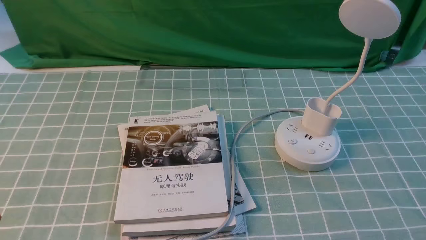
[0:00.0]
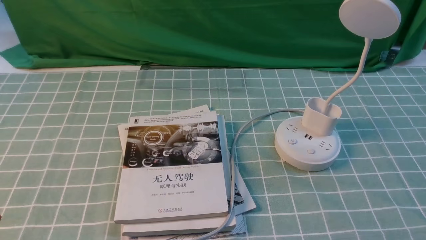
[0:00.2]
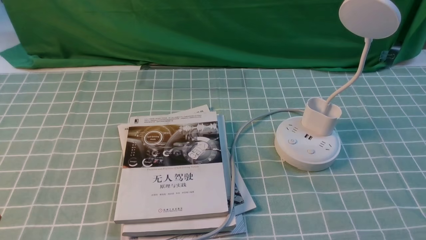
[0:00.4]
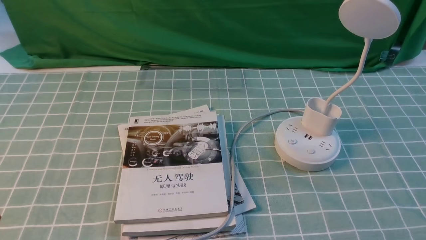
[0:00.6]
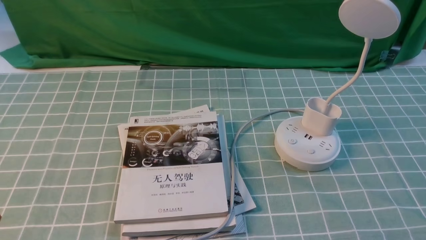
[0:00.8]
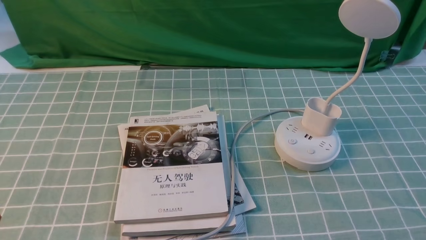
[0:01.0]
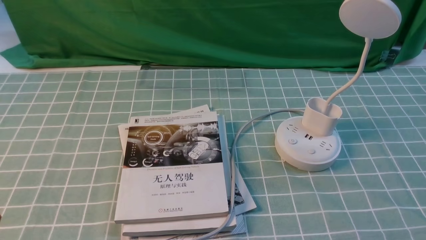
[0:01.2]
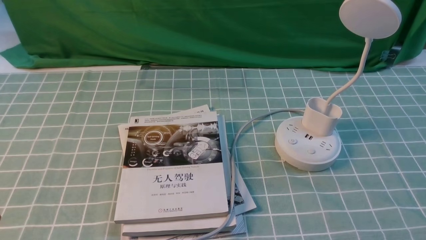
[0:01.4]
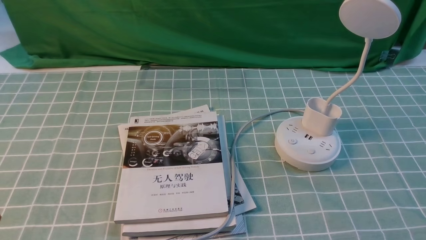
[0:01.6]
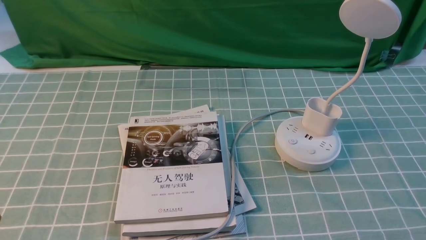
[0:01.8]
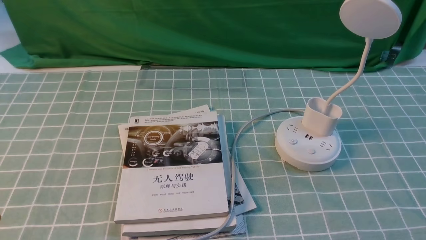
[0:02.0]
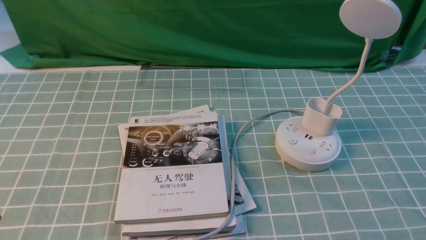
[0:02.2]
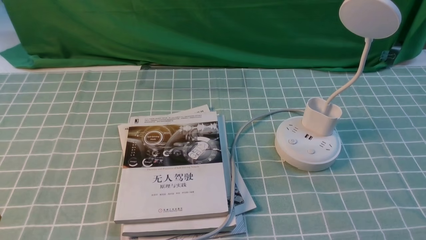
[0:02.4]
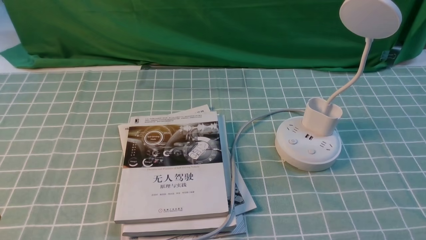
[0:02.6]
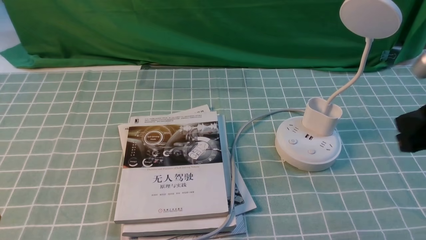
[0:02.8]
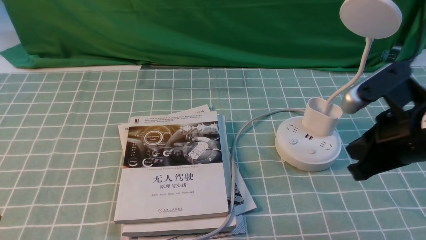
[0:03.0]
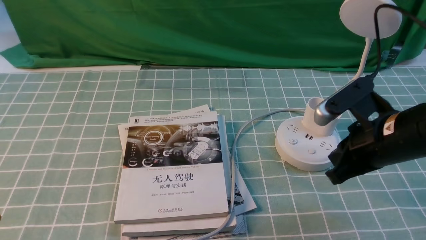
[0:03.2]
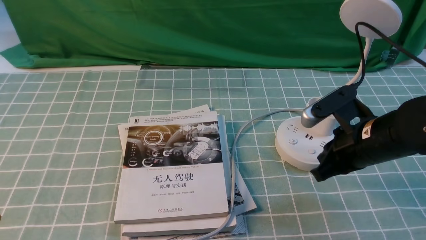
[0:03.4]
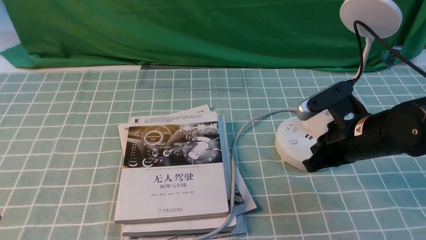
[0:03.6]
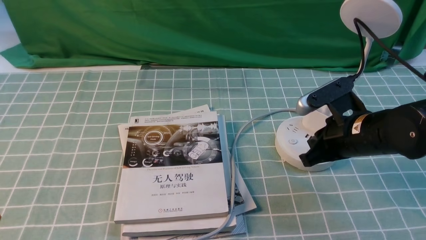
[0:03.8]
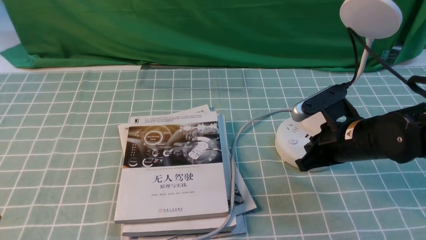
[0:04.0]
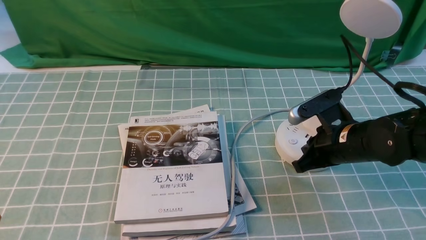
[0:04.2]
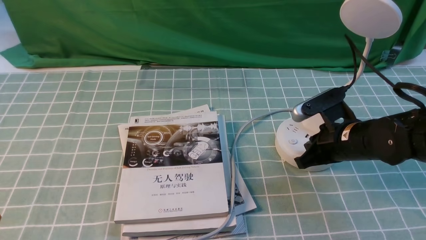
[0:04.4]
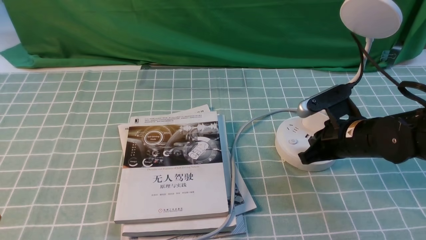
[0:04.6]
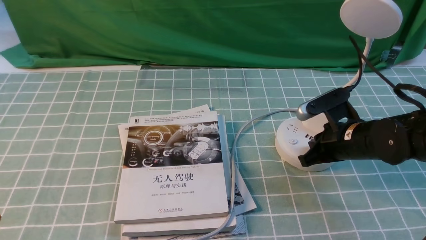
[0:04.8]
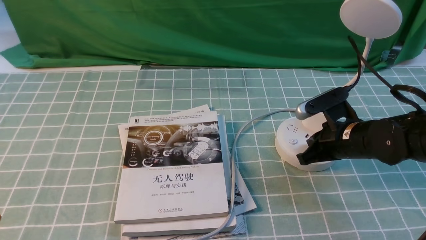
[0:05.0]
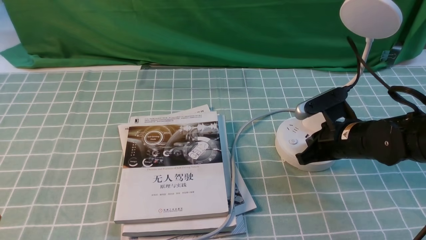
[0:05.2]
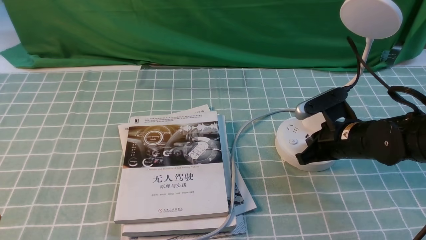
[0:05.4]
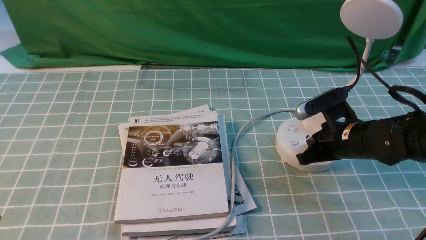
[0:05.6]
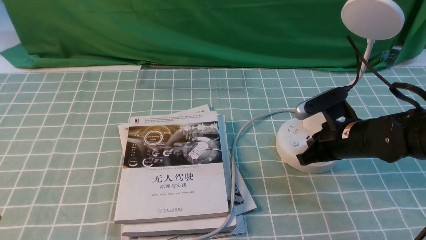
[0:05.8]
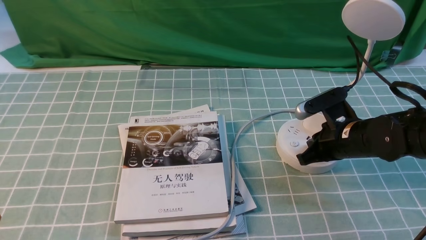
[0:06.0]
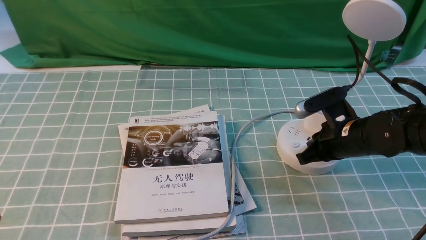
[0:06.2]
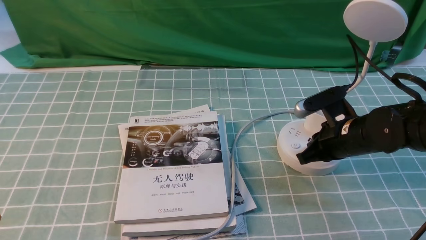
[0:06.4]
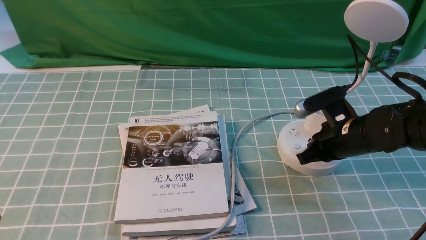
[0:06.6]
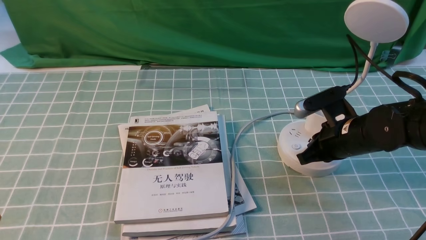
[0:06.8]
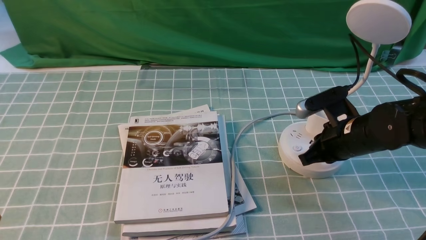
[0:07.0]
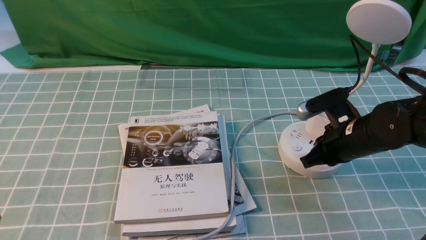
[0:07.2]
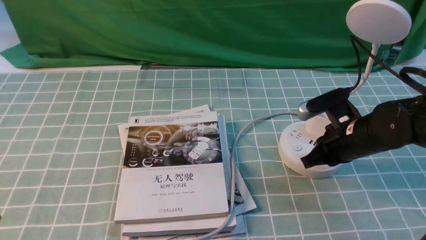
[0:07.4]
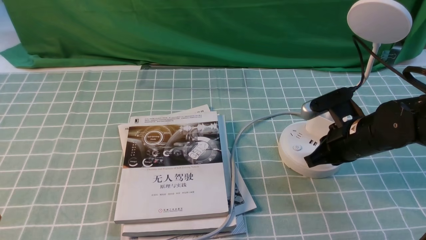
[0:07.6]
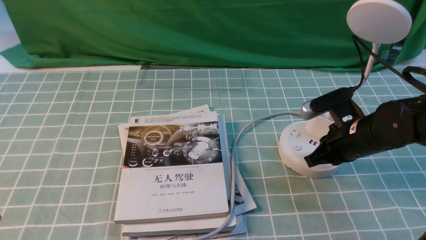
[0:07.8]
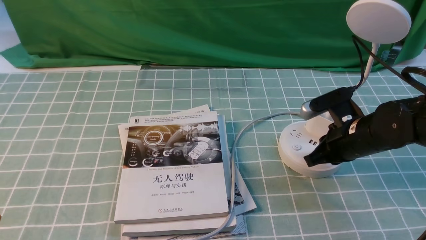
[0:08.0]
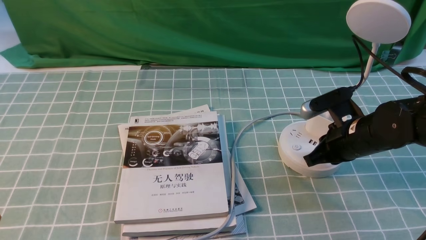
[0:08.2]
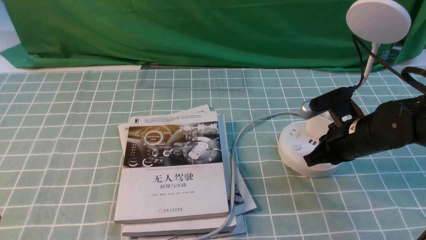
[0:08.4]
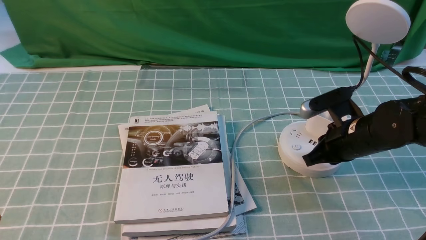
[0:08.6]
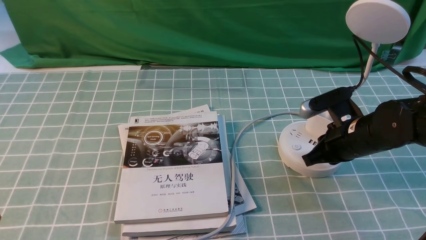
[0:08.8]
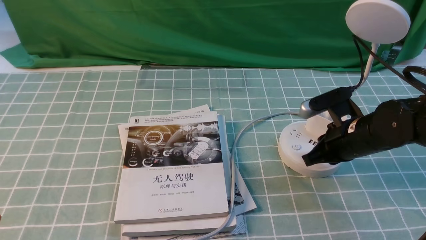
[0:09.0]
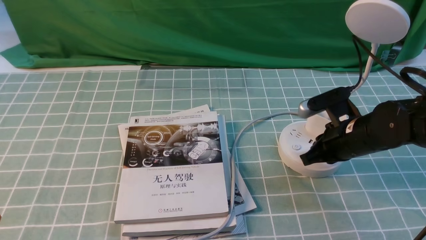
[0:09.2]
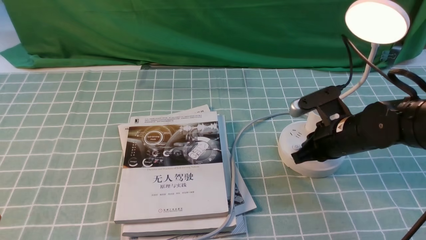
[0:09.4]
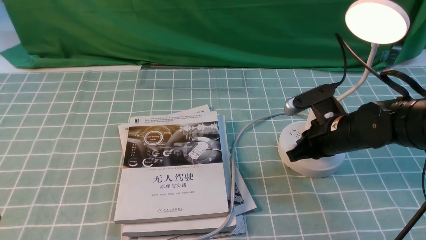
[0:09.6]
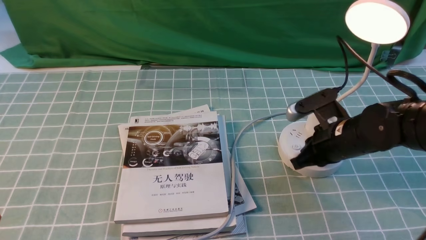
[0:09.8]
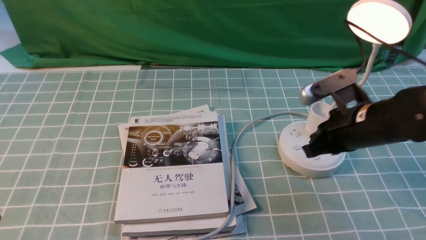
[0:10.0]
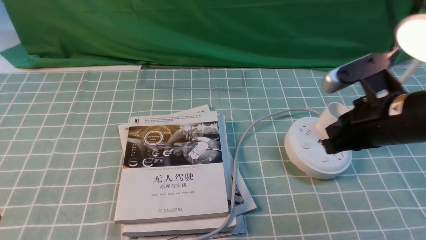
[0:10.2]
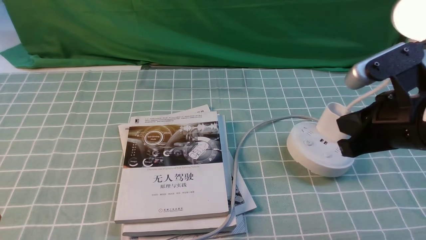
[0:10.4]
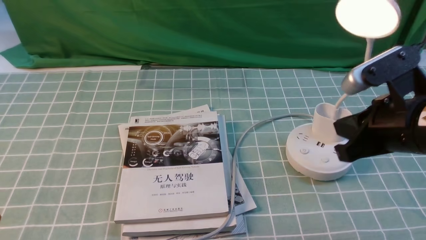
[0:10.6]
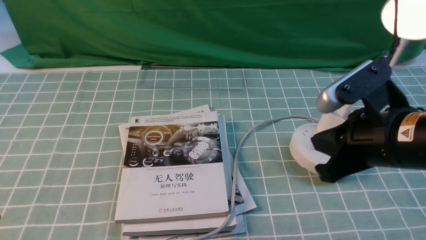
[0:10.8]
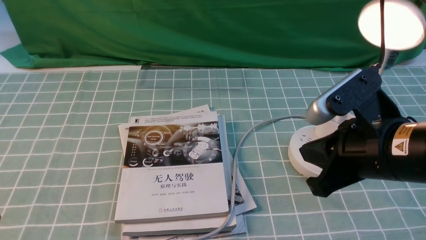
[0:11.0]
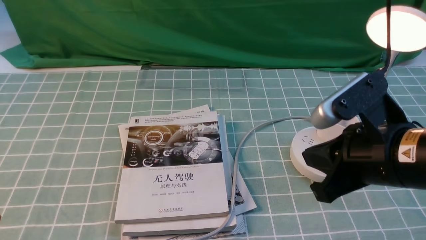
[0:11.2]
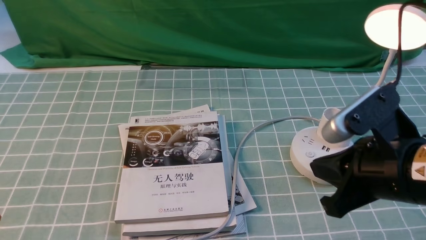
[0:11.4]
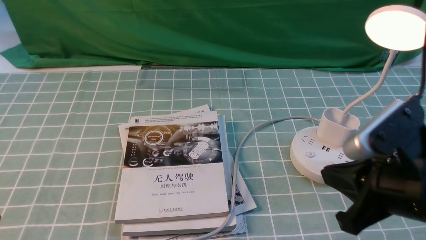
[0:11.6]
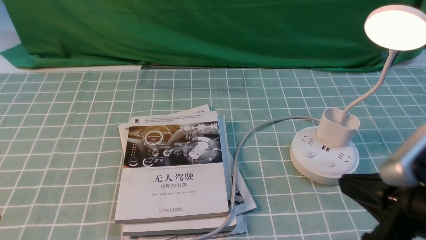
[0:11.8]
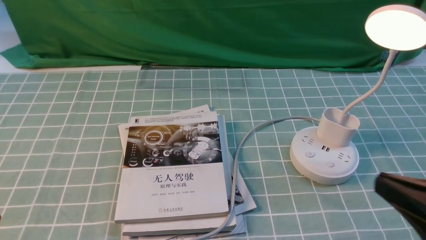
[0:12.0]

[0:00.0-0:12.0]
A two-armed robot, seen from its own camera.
Step, 0:00.0 to 0:09.6: use the right arm to press the button switch on the lamp holder.
0:01.6 to 0:03.0: The right gripper moves forward, to the left and upward, about 20 cm, and closes up.
0:03.0 to 0:04.4: The right gripper goes approximately 15 cm downward and forward.
0:04.4 to 0:07.6: The grippers make only small movements.
0:07.6 to 0:09.0: Neither gripper changes place.
0:09.0 to 0:10.4: The right gripper shifts roughly 15 cm upward and backward.
0:10.4 to 0:12.0: The right gripper is displaced backward by roughly 15 cm.

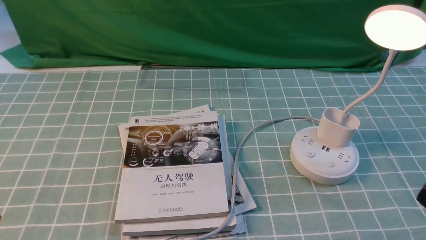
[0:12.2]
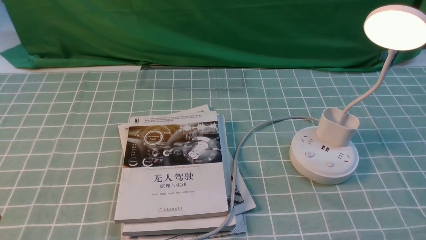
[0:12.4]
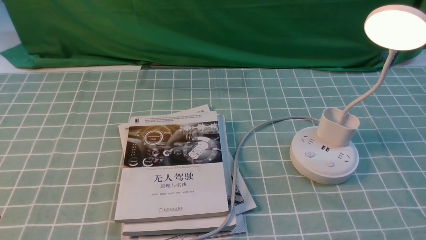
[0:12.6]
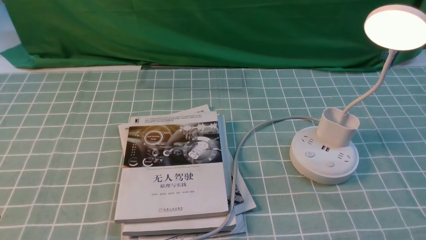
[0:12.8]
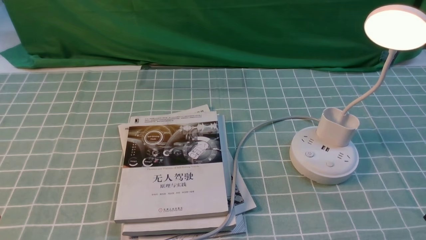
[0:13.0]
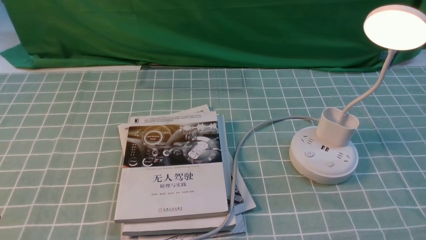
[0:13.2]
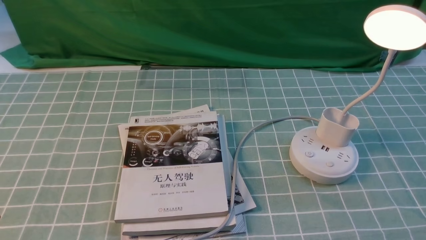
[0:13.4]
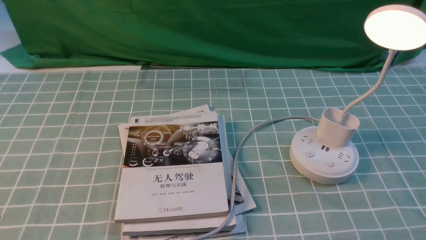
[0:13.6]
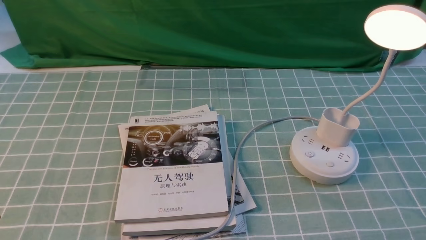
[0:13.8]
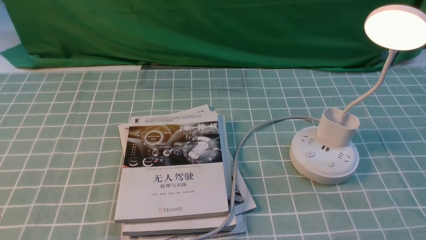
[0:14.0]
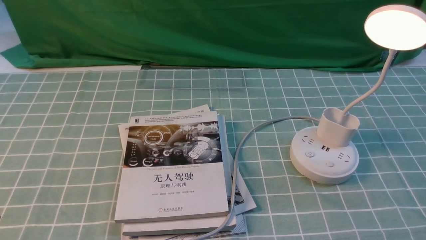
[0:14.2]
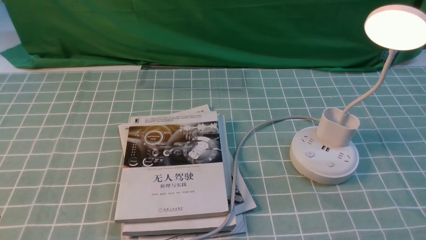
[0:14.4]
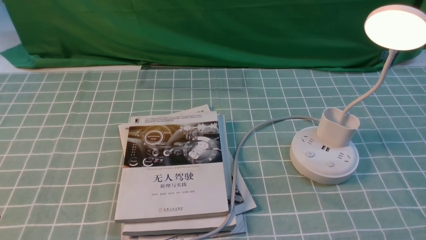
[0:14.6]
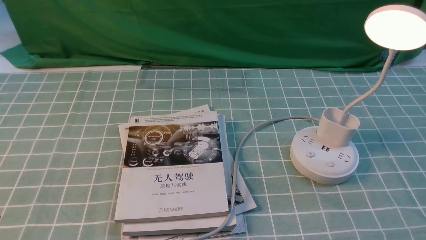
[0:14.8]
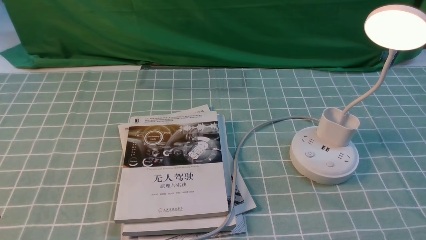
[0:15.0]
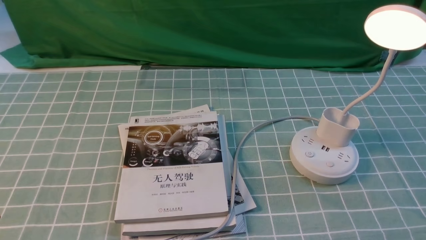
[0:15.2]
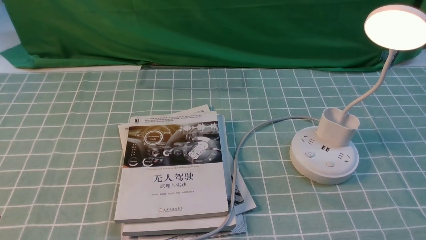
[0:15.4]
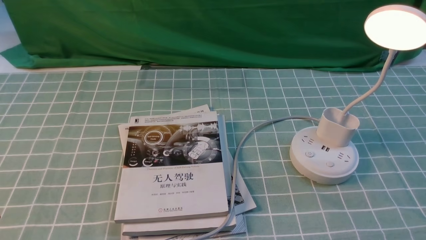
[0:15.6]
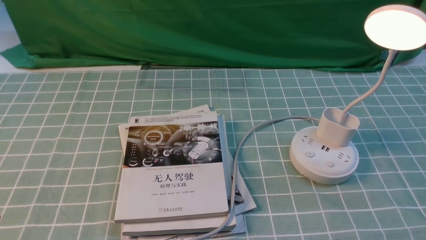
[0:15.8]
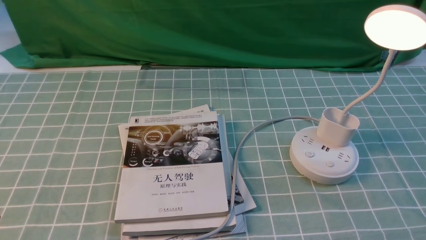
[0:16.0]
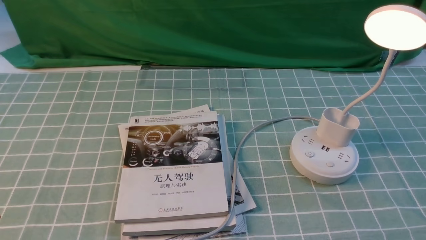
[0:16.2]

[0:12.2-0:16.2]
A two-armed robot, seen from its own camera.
0:13.6 to 0:16.2: Neither gripper changes place.
